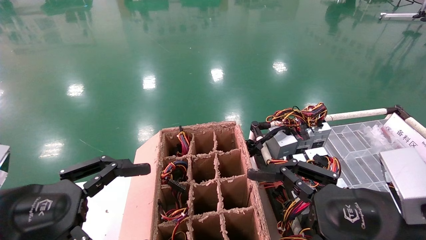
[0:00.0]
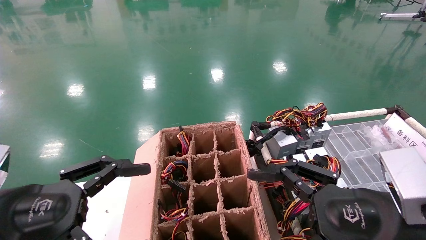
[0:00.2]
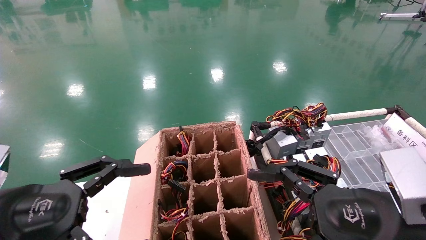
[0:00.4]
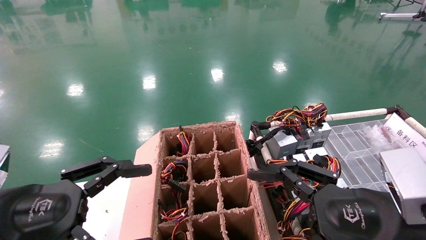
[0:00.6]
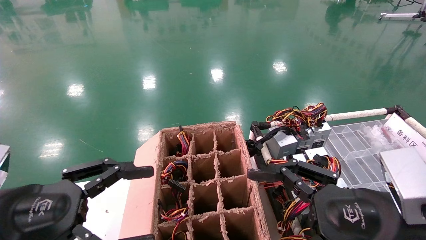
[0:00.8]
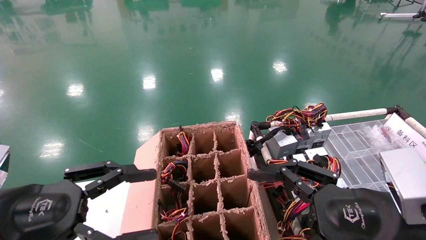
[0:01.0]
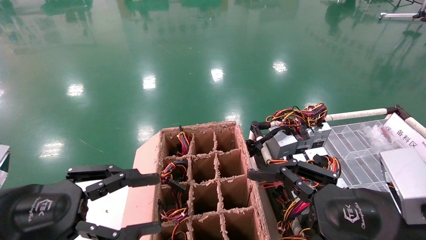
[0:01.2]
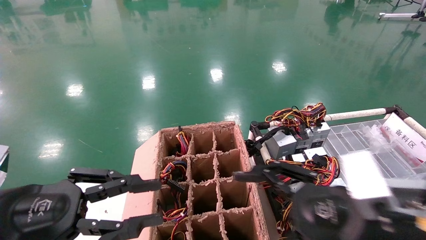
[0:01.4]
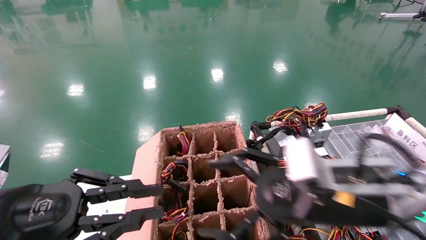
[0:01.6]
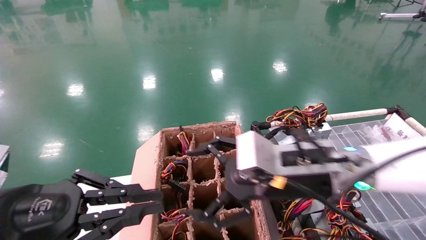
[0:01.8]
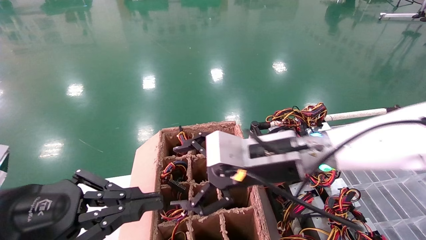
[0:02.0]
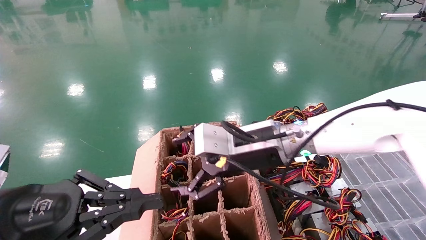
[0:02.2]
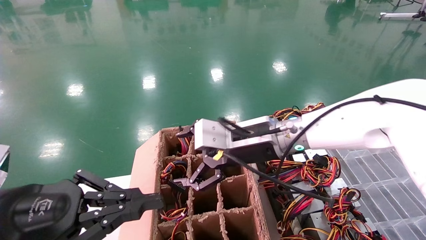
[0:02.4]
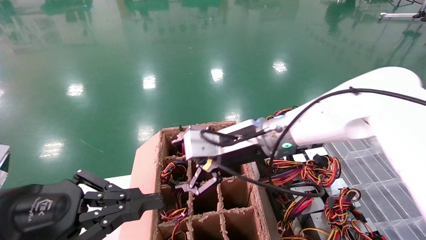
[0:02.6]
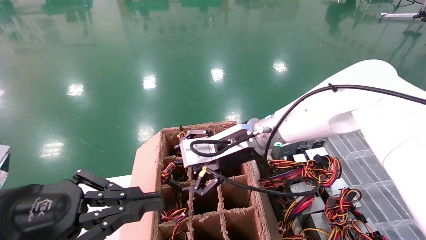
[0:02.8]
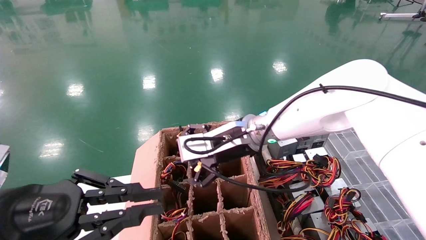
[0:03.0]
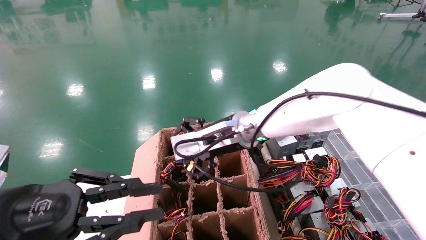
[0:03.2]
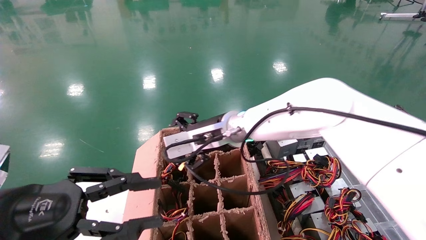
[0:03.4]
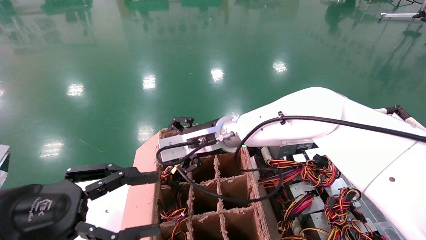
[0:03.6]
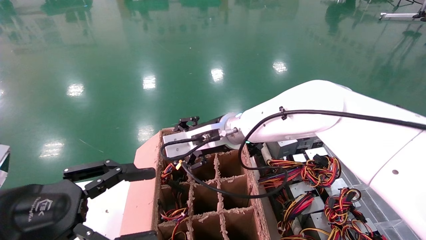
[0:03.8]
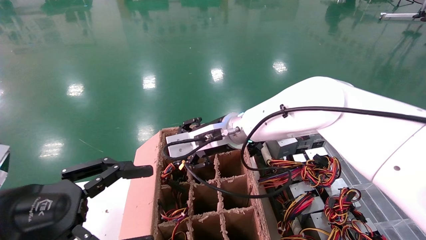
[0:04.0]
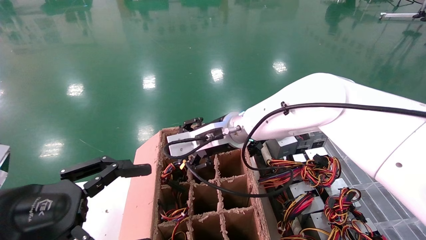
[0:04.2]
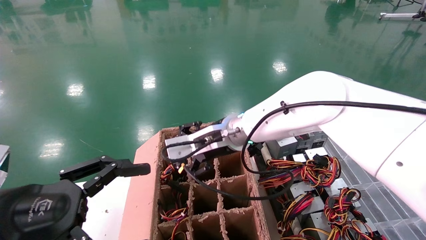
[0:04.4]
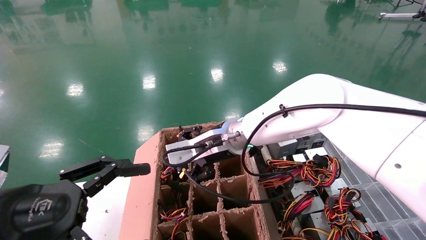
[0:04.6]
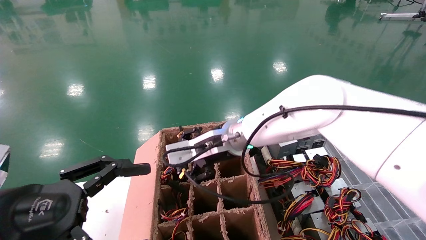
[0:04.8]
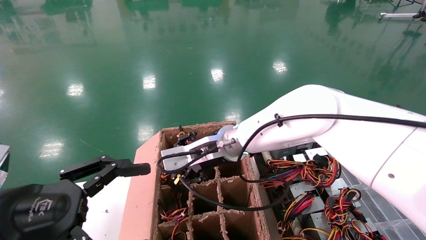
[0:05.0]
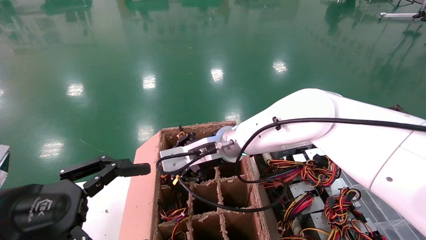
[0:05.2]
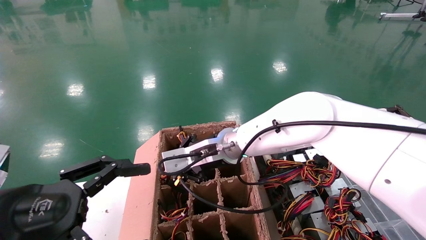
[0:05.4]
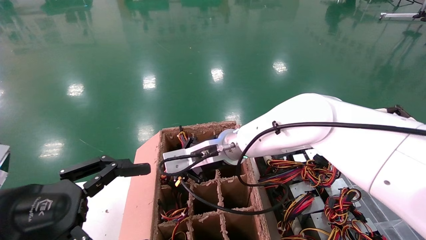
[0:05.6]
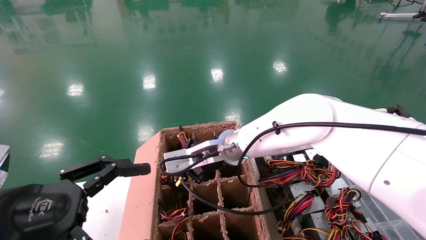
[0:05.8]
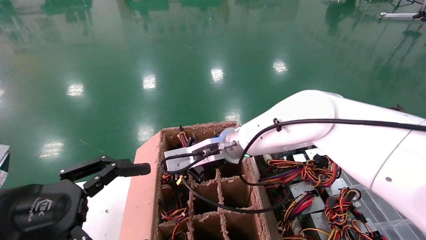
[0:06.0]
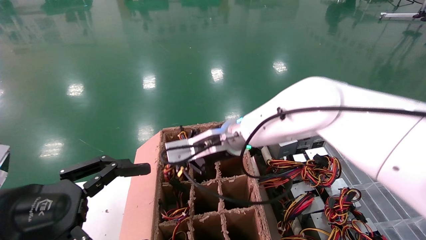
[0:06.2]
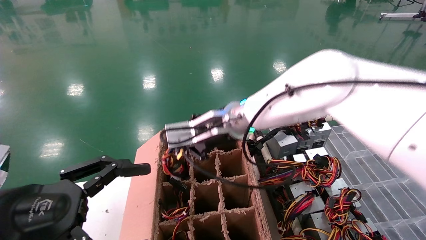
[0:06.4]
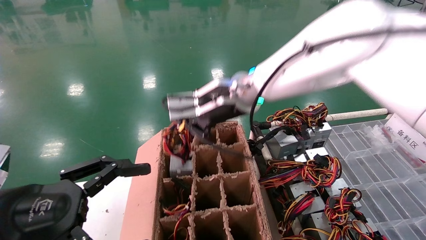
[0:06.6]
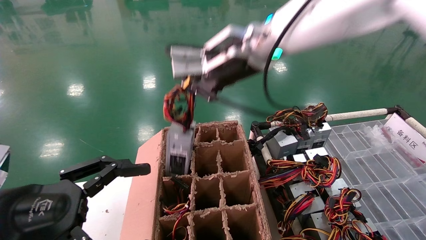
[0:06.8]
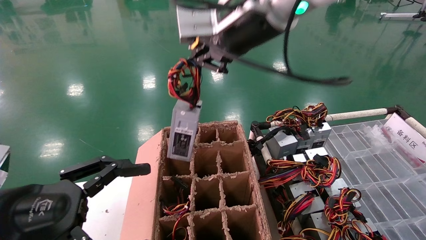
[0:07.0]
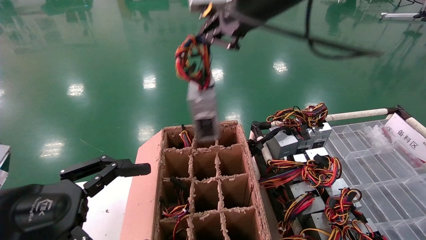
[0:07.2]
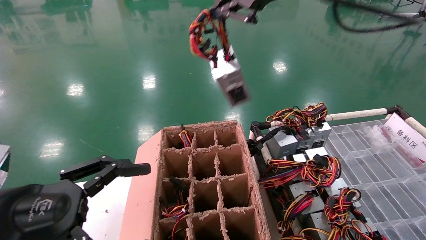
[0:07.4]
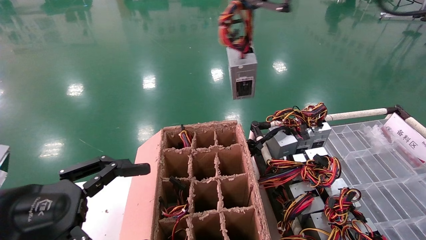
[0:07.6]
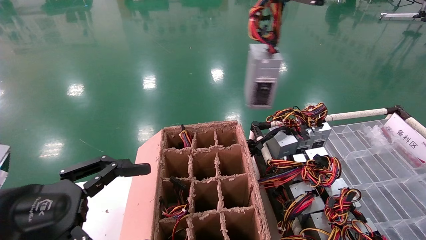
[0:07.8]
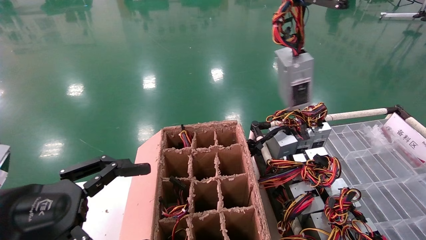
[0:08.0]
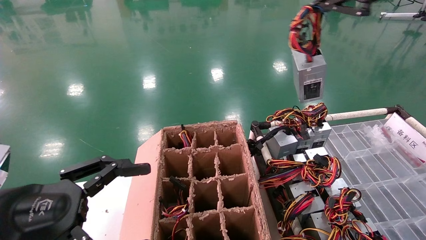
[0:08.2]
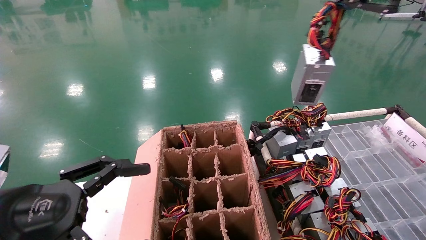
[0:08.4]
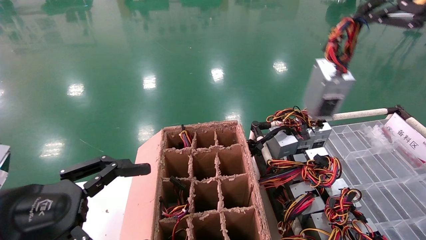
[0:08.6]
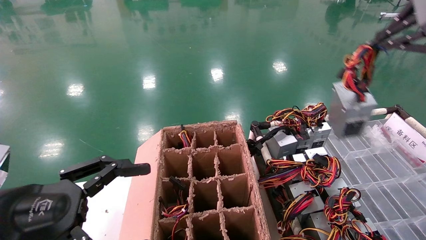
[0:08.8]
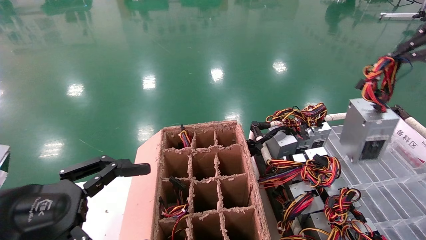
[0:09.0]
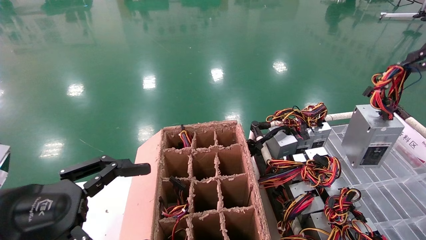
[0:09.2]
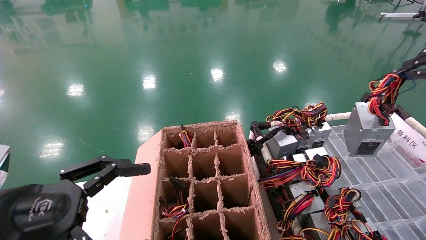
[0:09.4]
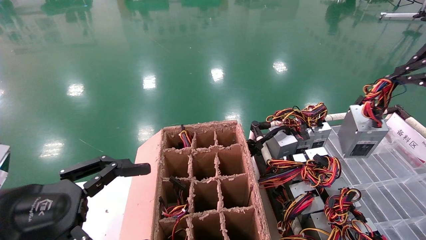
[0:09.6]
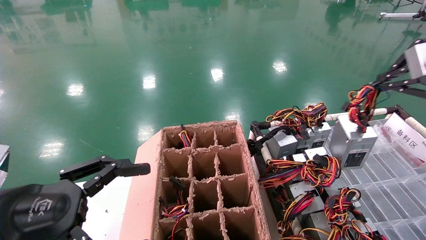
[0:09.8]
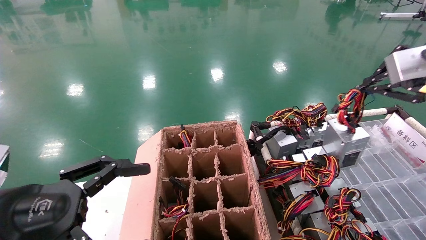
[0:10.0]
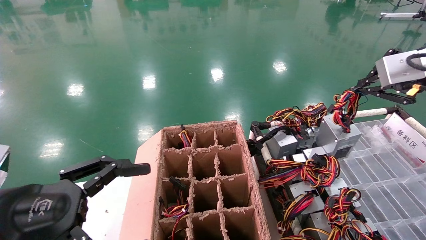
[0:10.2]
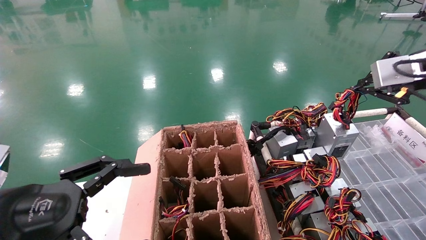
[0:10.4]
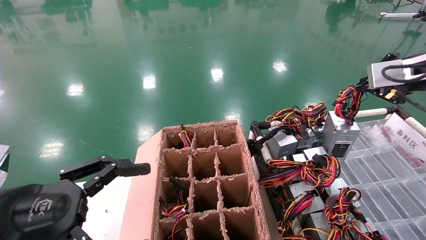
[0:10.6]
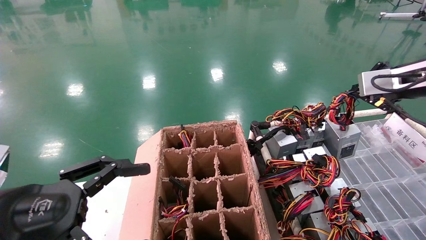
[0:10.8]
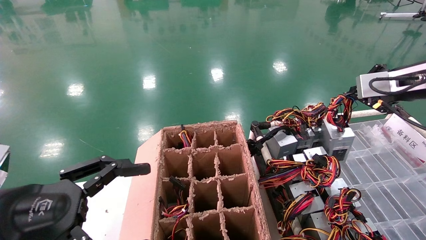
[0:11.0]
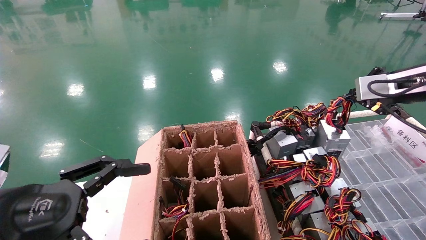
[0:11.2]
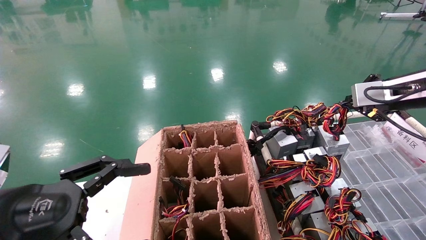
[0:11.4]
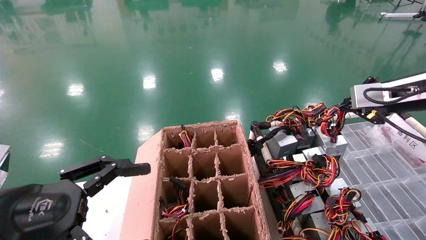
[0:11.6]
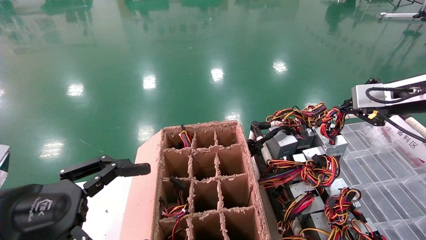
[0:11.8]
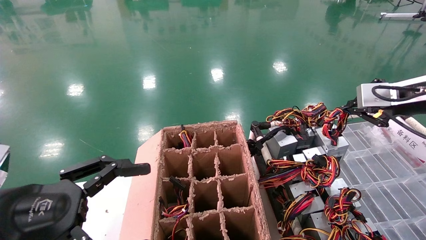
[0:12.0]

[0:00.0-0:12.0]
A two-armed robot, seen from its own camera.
Step, 0:02.4 to 0:06.0: Grab and lift the power supply from the large box.
0:00.0 to 0:01.6: The left gripper closes up, while the right gripper goes about 10 cm forward and to the left.
0:01.6 to 0:03.0: The right gripper shifts approximately 20 cm forward and to the left.
0:03.0 to 0:04.4: The left gripper opens its fingers.
0:04.4 to 0:06.0: The right gripper closes its fingers.
0:06.0 to 0:07.6: The right gripper is displaced upward, backward and to the right by some 35 cm.
0:07.6 to 0:09.0: The right gripper is displaced to the right by about 25 cm.
0:09.0 to 0:10.4: The right gripper is displaced forward and downward by about 15 cm.
0:10.4 to 0:12.0: The right gripper heads downward, covering about 5 cm.

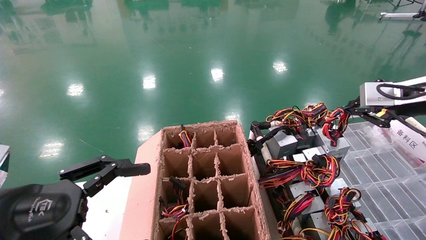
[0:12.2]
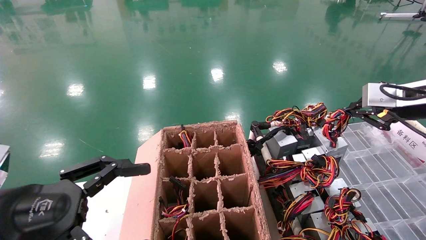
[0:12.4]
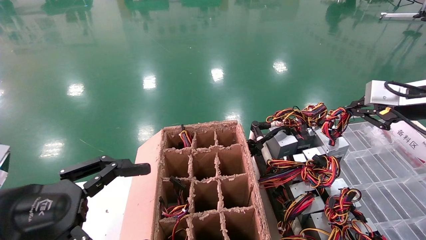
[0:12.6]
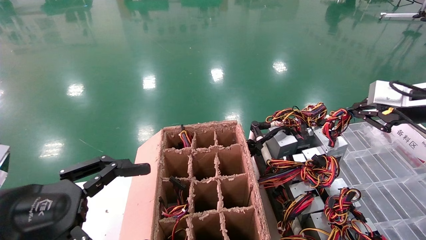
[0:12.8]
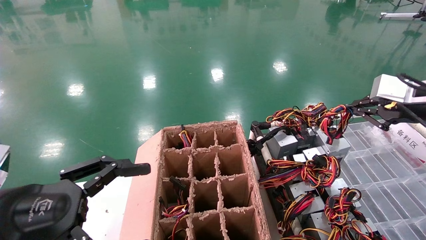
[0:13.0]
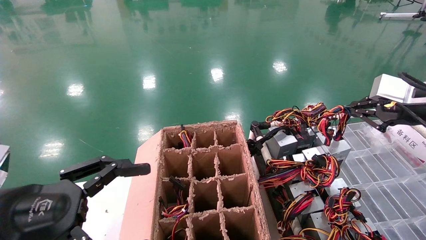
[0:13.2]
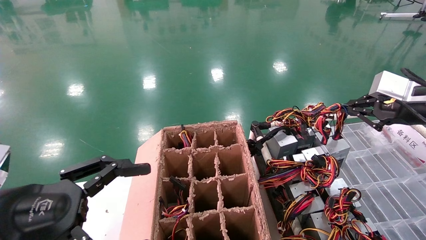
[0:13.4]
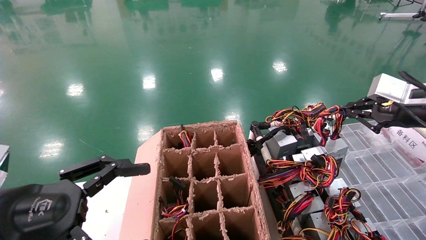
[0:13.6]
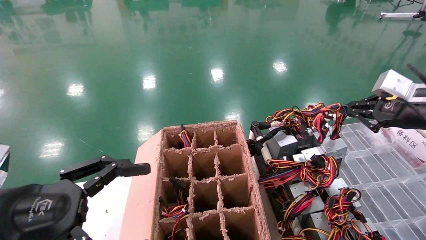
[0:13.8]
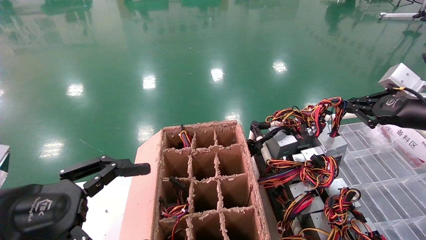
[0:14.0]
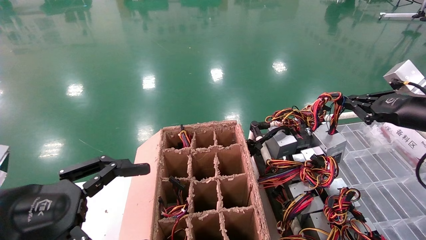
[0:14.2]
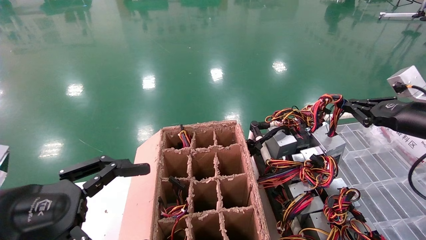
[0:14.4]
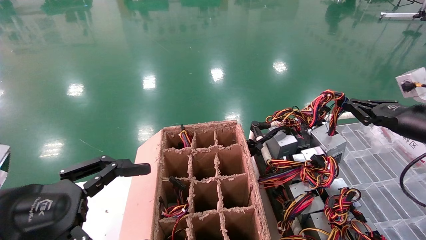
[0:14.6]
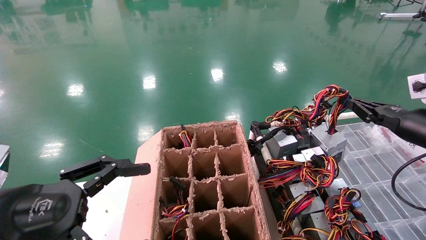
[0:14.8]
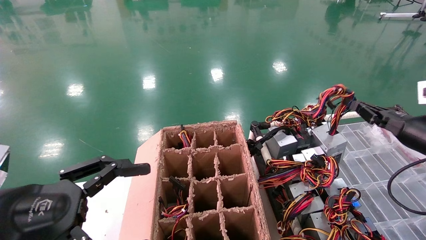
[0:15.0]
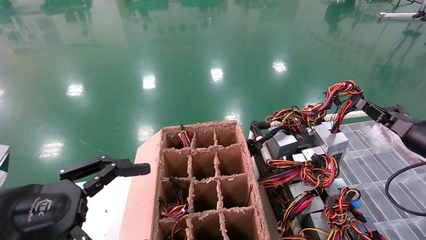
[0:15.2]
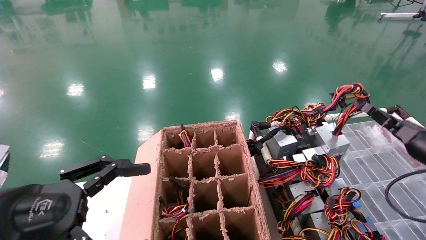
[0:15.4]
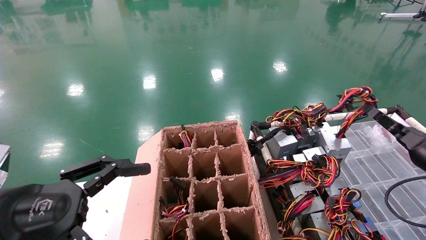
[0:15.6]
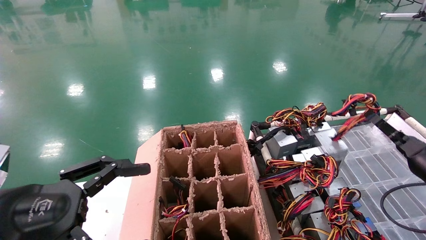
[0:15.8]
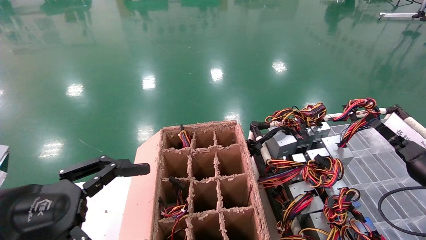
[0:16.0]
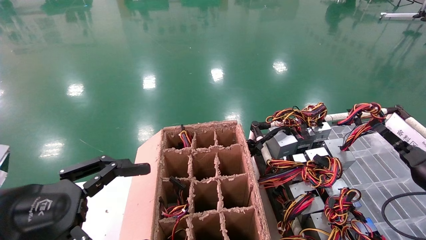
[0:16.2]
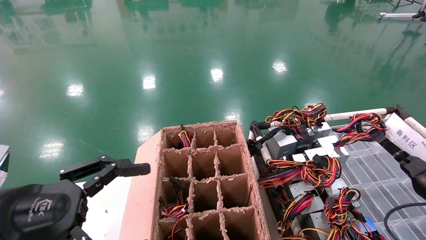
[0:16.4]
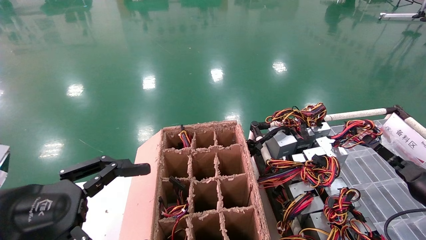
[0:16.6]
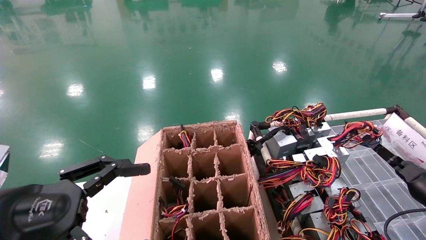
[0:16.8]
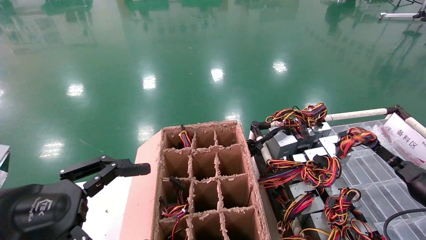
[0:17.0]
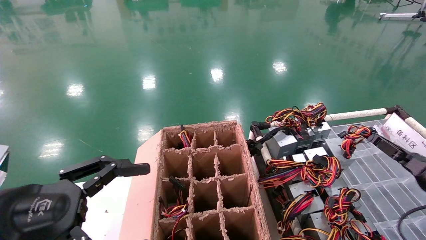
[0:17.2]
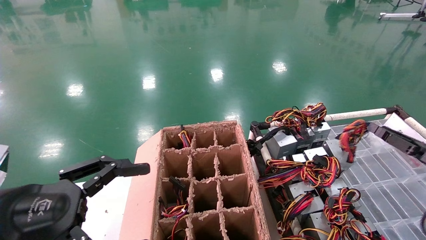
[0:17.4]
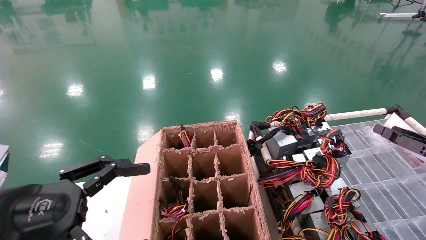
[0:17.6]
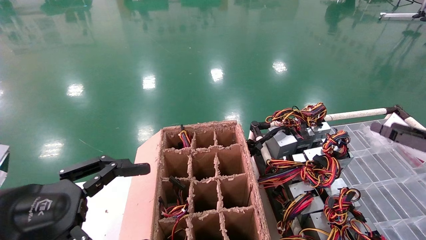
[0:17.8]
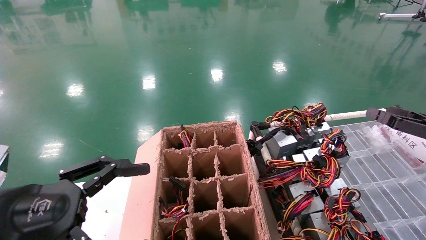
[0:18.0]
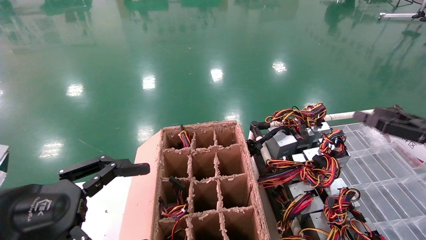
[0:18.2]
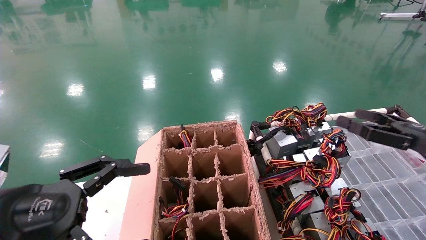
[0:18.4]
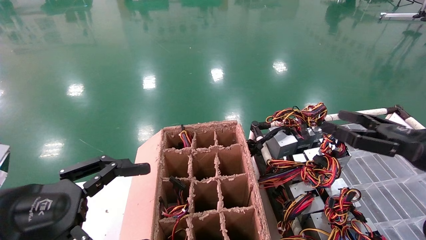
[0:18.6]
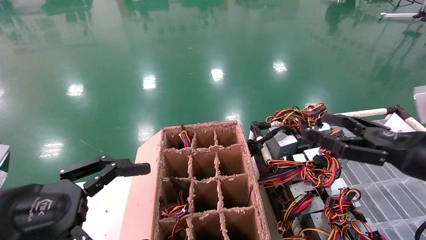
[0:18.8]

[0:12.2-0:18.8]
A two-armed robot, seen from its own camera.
Step, 0:12.2 to 0:17.0: Place the power supply on the operating table.
0:13.8 to 0:15.4: The right gripper is displaced downward by about 10 cm.
0:15.4 to 0:17.2: The right gripper is displaced downward by about 5 cm.
0:17.2 to 0:18.8: The right gripper goes approximately 15 cm to the left, upward and backward, and opens.
